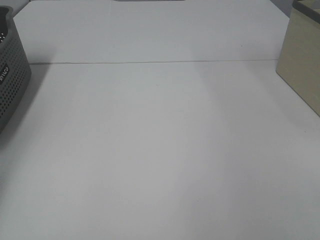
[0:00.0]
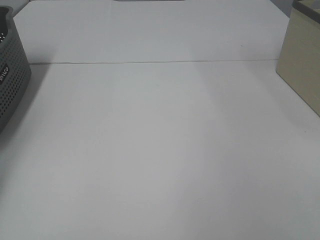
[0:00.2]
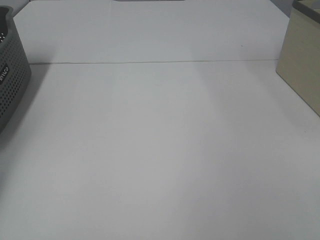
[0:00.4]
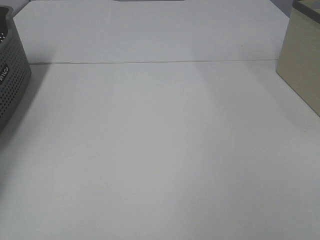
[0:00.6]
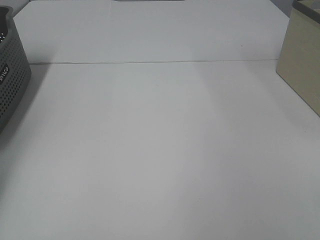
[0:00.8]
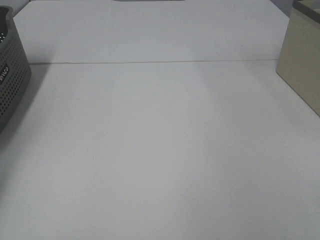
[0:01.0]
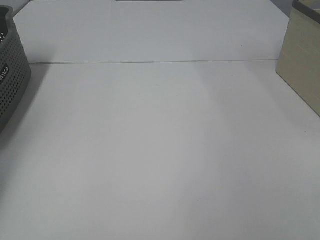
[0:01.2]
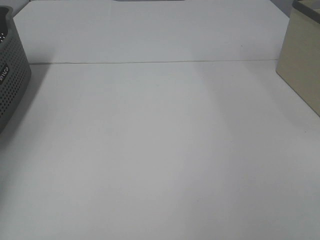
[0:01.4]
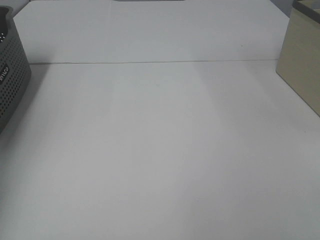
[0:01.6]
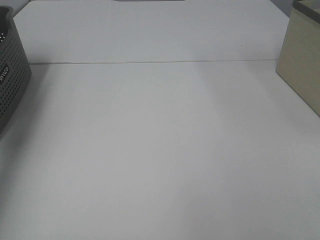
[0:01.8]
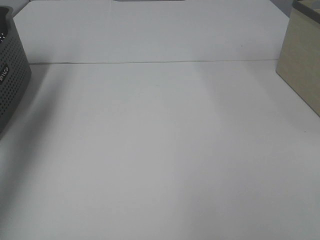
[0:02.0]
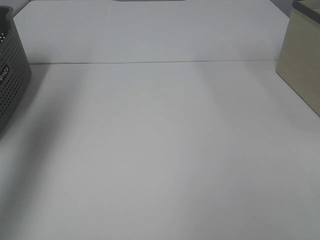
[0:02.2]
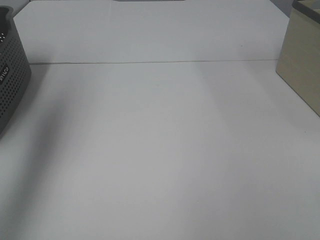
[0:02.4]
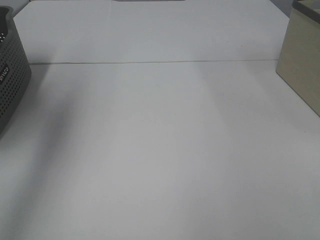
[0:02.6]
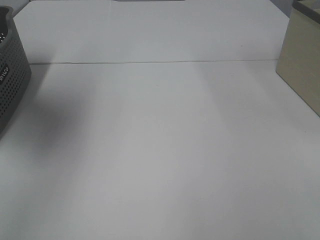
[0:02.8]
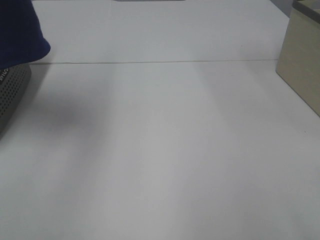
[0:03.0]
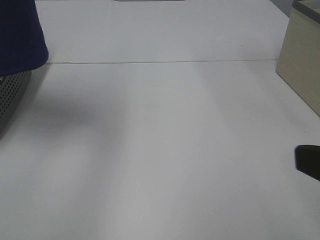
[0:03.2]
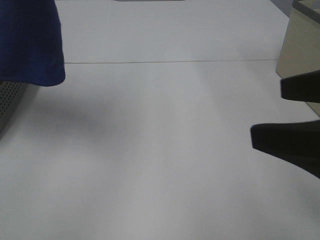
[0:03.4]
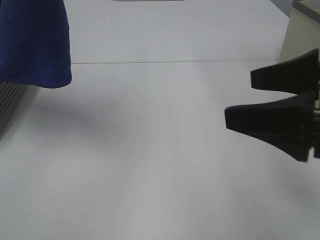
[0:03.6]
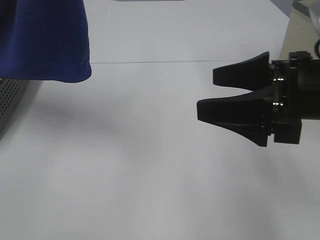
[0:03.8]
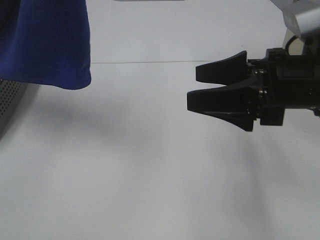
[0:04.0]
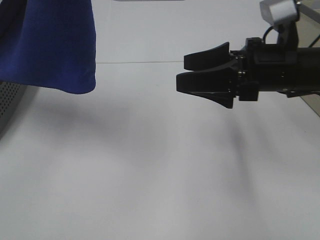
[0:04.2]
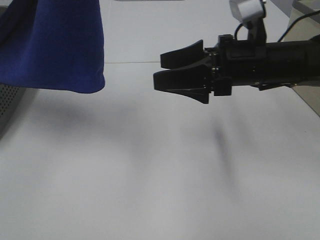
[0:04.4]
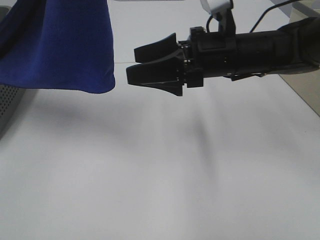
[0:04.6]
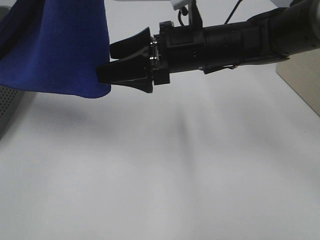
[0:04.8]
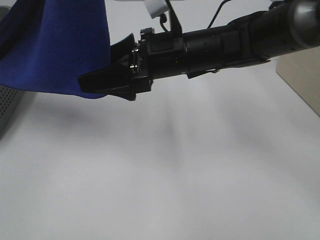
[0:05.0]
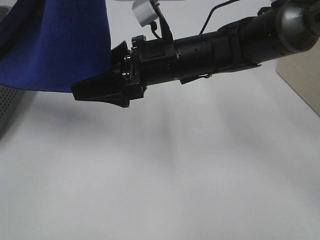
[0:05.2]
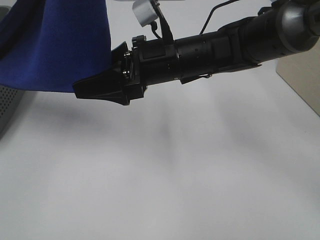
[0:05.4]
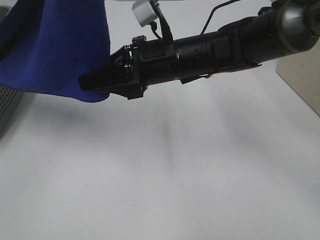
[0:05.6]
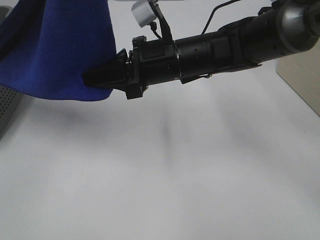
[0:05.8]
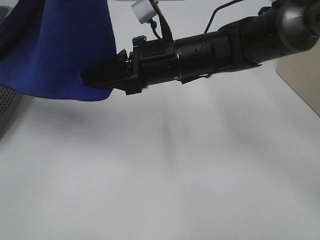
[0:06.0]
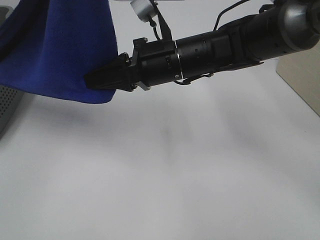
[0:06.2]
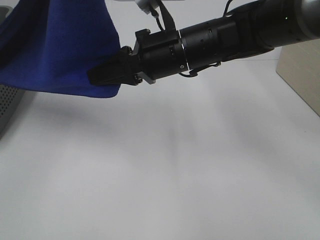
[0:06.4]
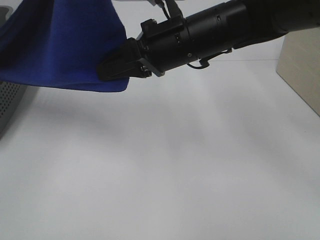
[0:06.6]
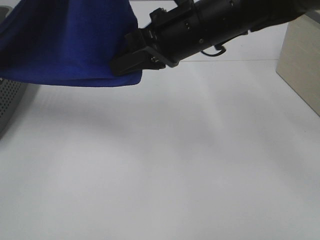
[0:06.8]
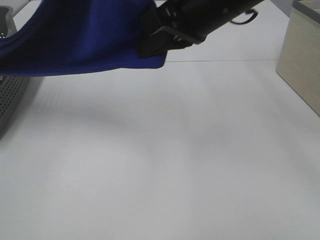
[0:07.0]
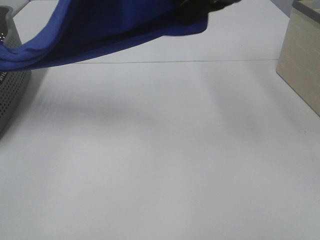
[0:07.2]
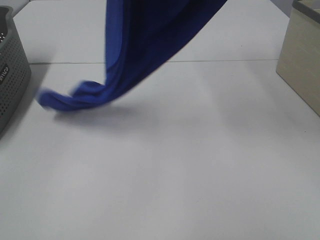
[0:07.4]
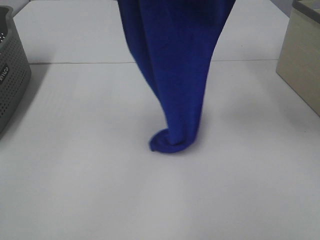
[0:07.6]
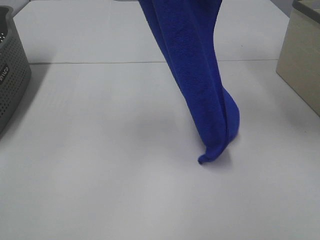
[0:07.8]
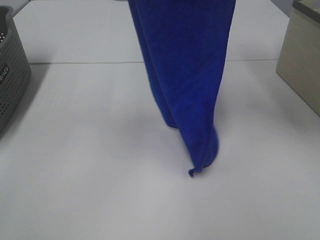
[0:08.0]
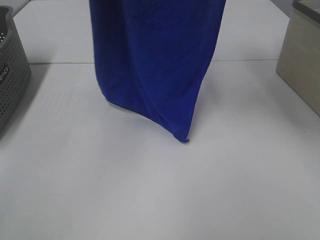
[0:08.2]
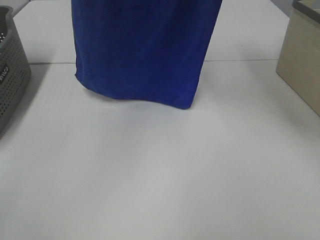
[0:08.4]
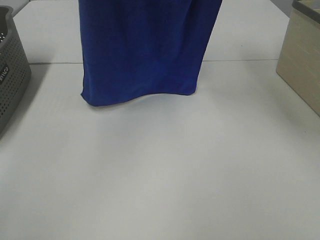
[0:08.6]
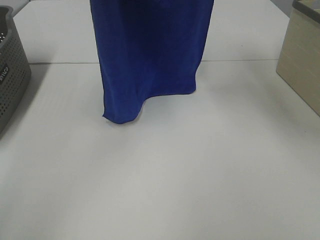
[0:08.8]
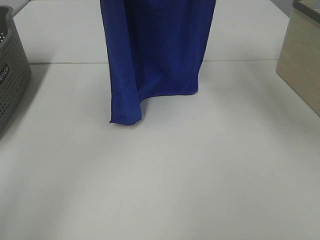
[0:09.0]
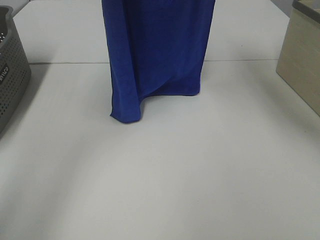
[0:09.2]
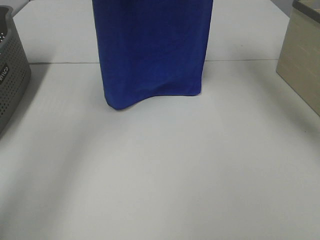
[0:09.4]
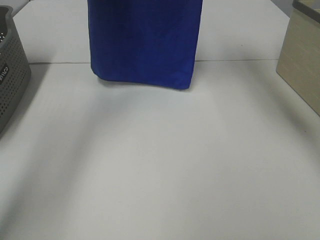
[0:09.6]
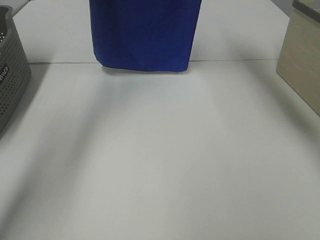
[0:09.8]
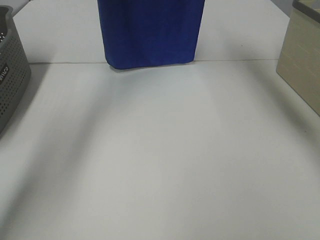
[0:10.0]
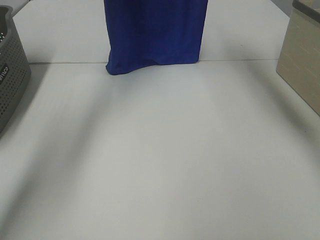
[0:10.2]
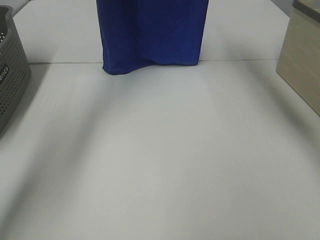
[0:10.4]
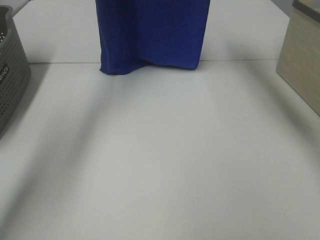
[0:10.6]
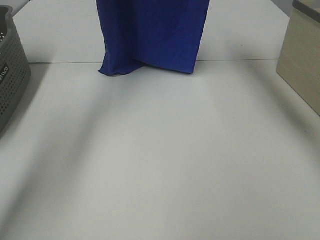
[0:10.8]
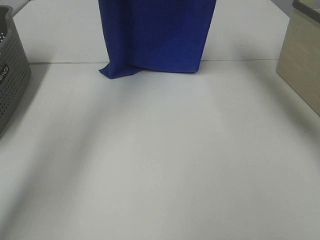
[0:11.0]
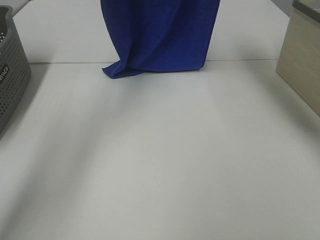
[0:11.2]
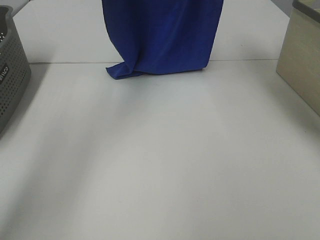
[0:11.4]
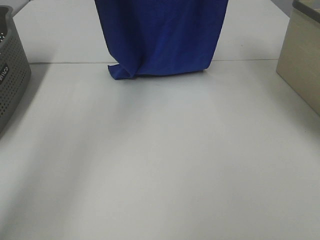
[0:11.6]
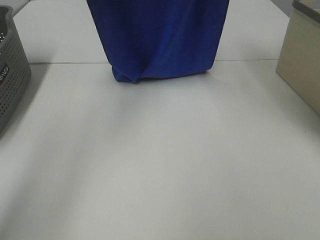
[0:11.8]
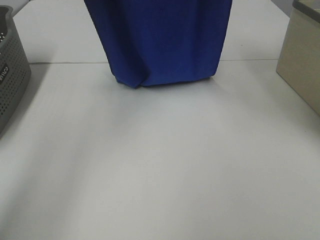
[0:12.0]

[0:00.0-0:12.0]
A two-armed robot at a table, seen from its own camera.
Task of the whole recording: Remove the towel and place it.
Step, 0:02.8 to 0:06.8: Right hand: grab a corner of the blue towel and straighten it.
0:01.6 to 0:03.0: The left gripper is displaced to the right, upward and backward by about 35 cm.
0:03.0 to 0:04.4: The right gripper moves forward and to the left, roughly 30 cm, while the left gripper is displaced to the right by roughly 10 cm.
0:04.4 to 0:06.0: The right gripper is displaced to the left by about 10 cm, and closes its fingers.
0:06.0 to 0:07.6: The right gripper travels upward and to the right by roughly 30 cm.
0:07.6 to 0:09.0: The right gripper moves forward, about 5 cm. The left gripper is displaced forward by about 10 cm.
0:09.0 to 0:10.4: The two grippers go approximately 10 cm forward.
0:10.4 to 0:12.0: The grippers both shift backward by approximately 10 cm.

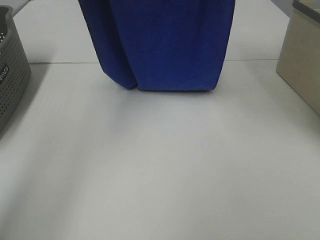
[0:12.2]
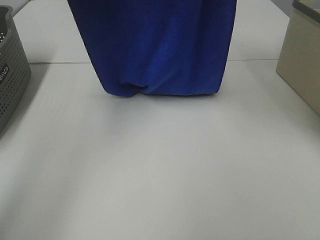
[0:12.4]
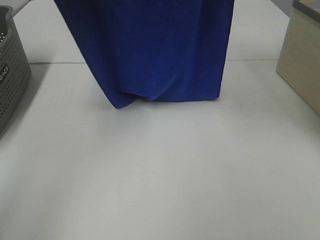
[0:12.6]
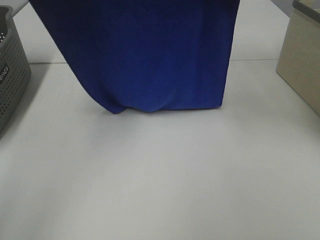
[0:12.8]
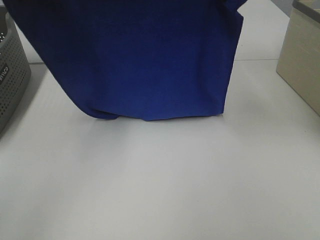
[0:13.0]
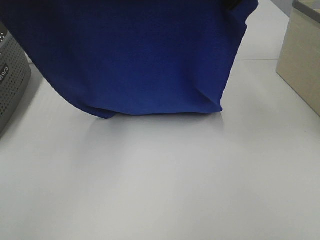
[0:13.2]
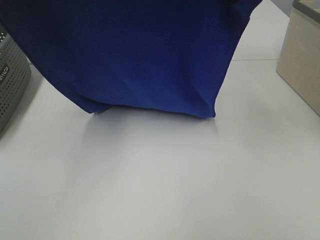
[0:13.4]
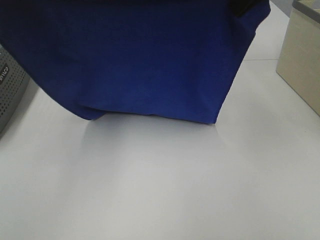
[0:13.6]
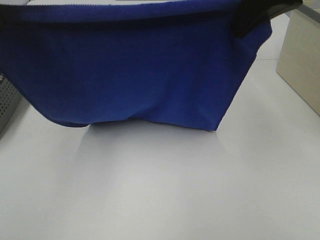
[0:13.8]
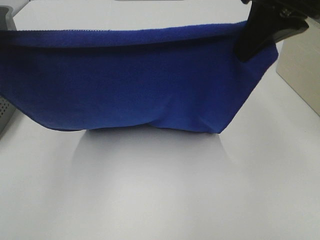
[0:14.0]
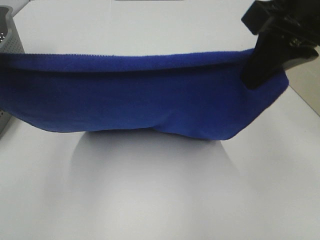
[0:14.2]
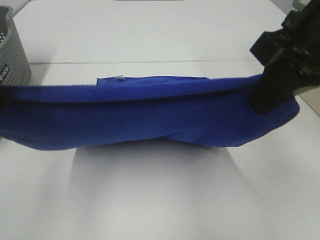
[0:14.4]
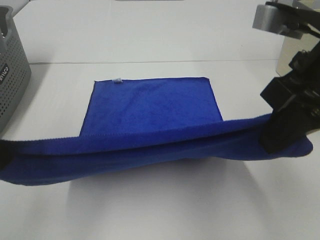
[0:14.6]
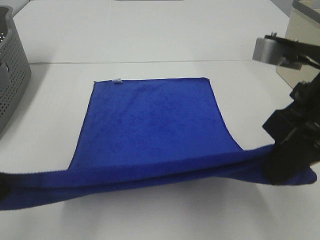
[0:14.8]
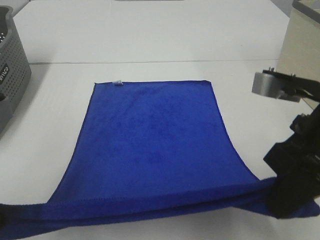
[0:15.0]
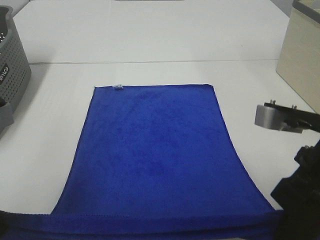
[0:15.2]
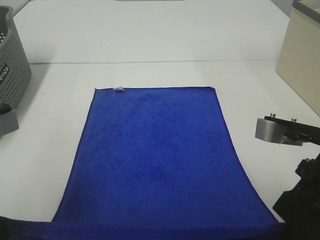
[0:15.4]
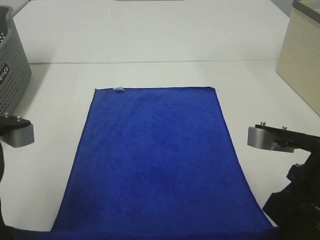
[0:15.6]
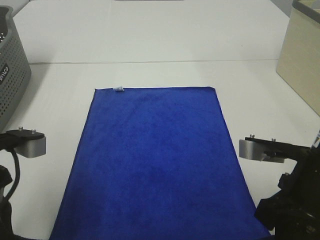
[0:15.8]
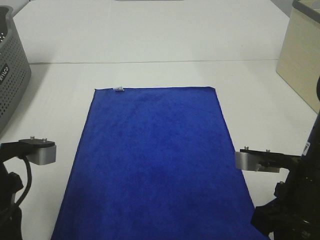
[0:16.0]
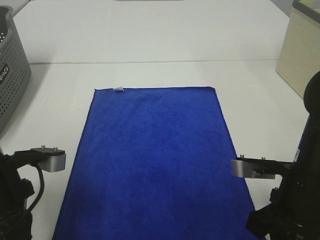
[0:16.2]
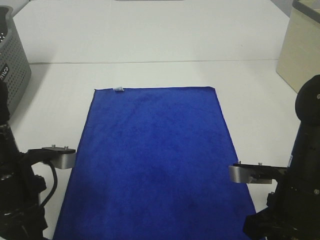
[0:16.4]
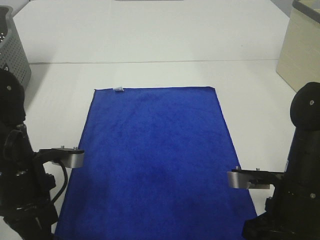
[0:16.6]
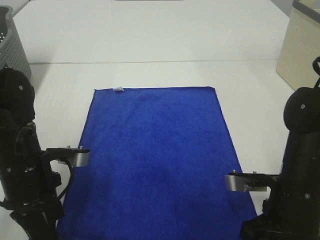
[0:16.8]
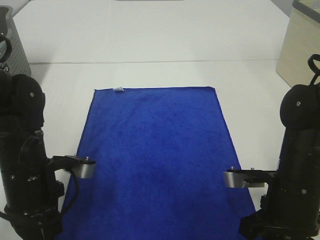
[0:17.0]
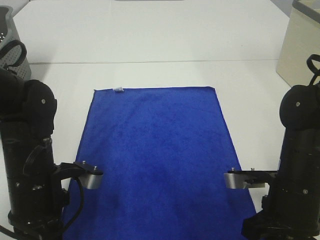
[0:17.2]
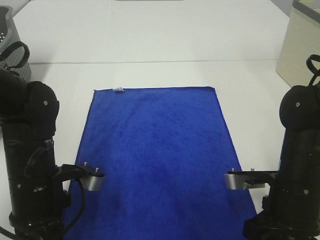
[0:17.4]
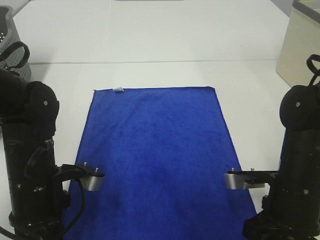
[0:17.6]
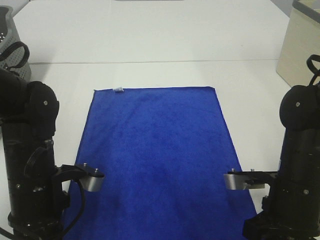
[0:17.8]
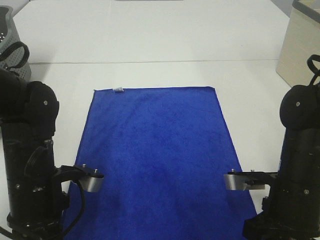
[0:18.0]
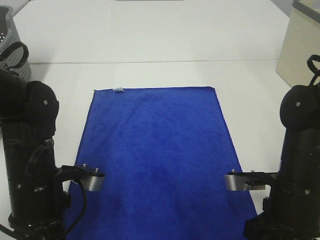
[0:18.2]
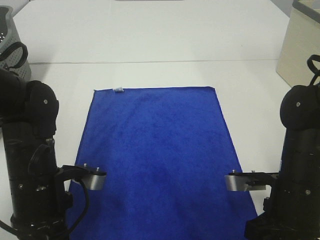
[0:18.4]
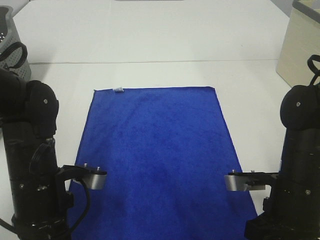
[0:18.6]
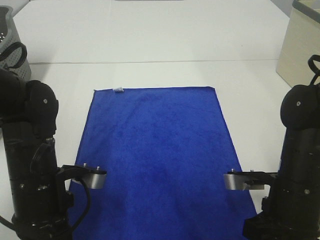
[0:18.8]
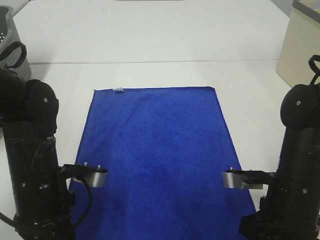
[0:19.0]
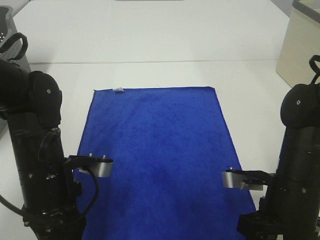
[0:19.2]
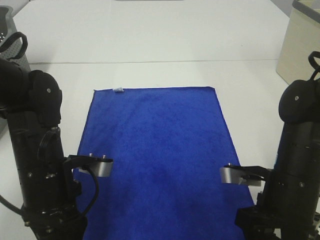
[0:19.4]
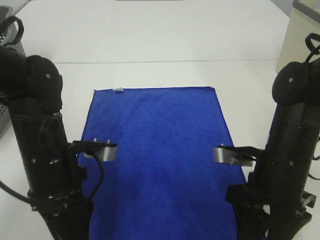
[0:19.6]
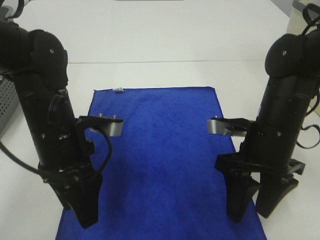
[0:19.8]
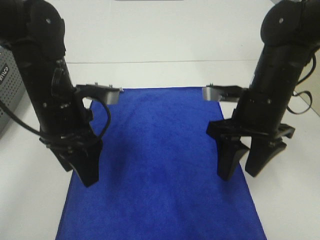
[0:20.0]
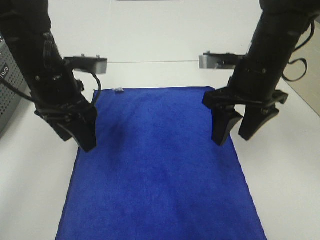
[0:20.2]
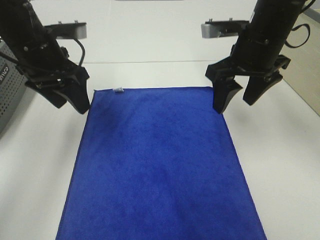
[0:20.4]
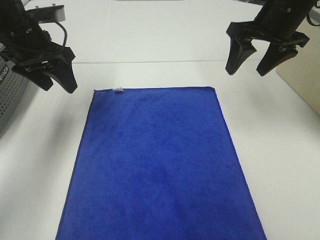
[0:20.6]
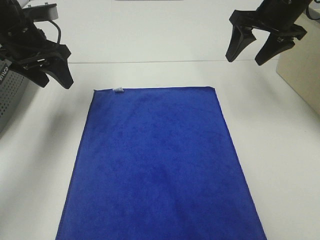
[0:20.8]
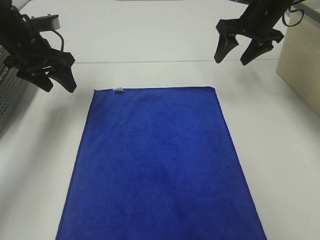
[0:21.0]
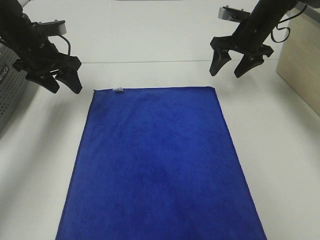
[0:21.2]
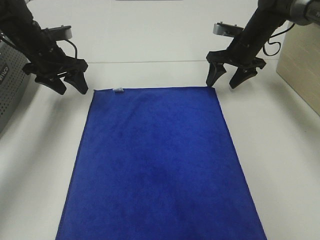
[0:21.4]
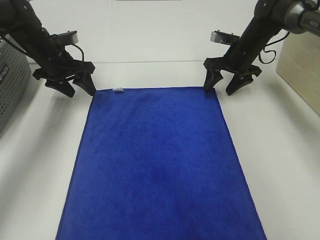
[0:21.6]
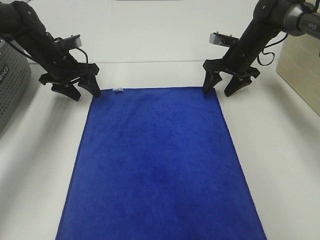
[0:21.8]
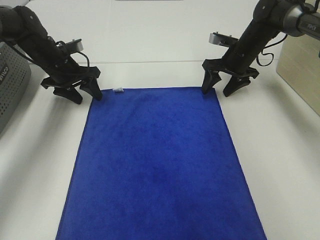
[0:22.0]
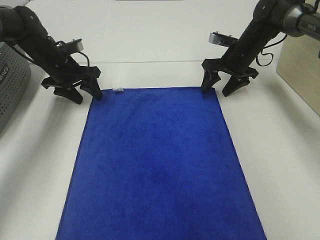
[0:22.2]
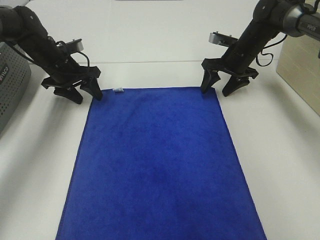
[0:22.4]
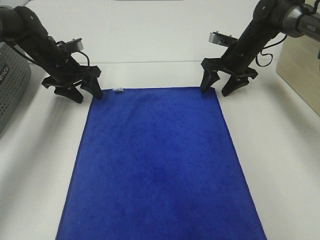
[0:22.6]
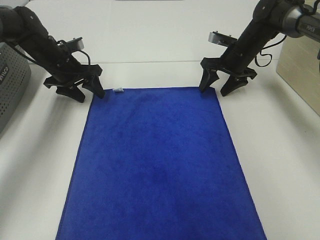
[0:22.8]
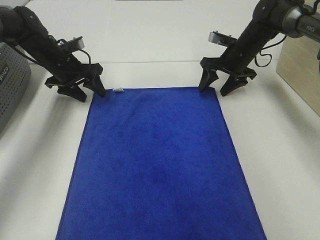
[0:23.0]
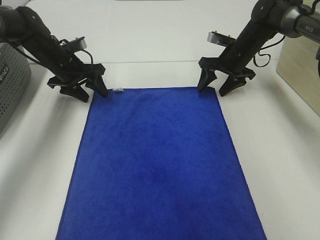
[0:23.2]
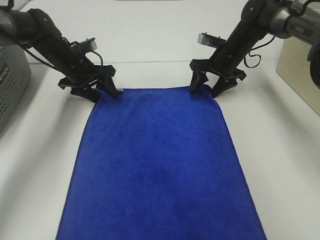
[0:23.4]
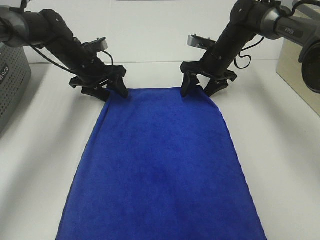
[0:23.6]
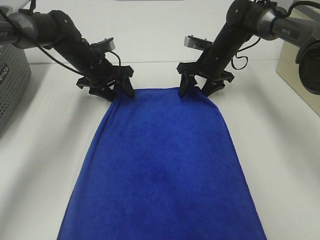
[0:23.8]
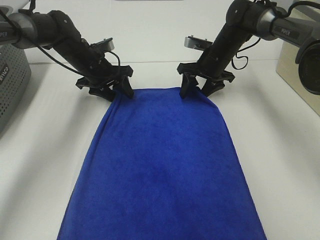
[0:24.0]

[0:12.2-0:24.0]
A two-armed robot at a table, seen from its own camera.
Task of the whole recording: Remove the towel and place it.
Step, 0:12.2 to 0:14.2: Left hand: spread the blue towel flat on the table.
Step, 0:12.2 to 0:14.2: Right hand: spread the blue towel flat on the table.
Step, 0:14.4 to 0:22.4: Left hand:adjust the blue towel.
Step, 0:14.4 to 0:22.4: Right hand:adjust the blue towel.
0:12.2 to 0:13.6: The left gripper travels backward and downward by some 15 cm. The right gripper heads backward and downward, covering roughly 10 cm.
0:13.6 to 0:15.2: The two grippers go approximately 20 cm downward and backward.
0:15.2 to 0:16.6: The left gripper travels downward and forward by about 15 cm; the right gripper travels downward by approximately 10 cm.
0:16.6 to 0:18.2: The grippers move only a little.
0:18.2 to 0:19.6: The right gripper opens up. The left gripper opens.
0:19.6 to 0:21.0: The left gripper travels forward and to the left by some 25 cm; the right gripper goes about 30 cm forward.
0:21.0 to 0:22.6: The right gripper moves downward, some 10 cm. Meanwhile the left gripper moves downward and forward, some 10 cm.
0:22.6 to 0:24.0: The left gripper moves to the right, approximately 5 cm. The right gripper goes approximately 5 cm to the left.
